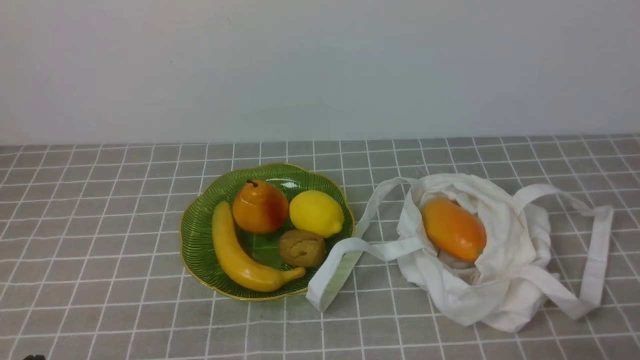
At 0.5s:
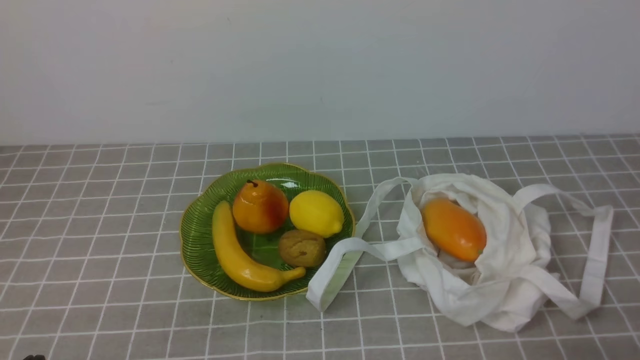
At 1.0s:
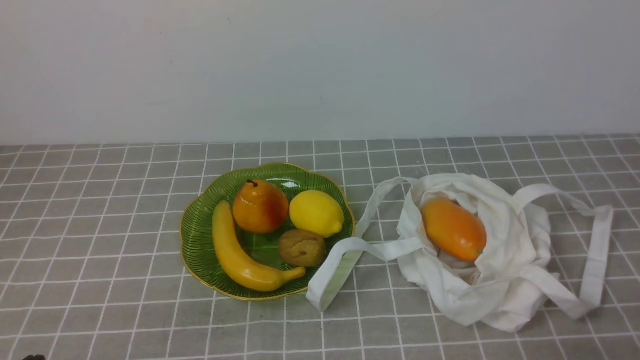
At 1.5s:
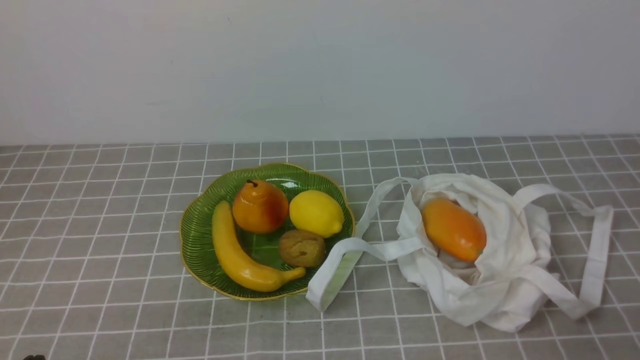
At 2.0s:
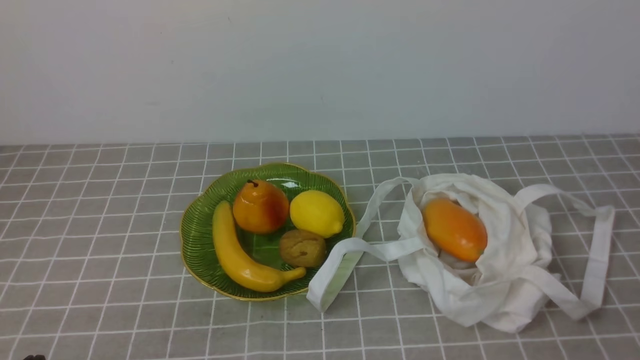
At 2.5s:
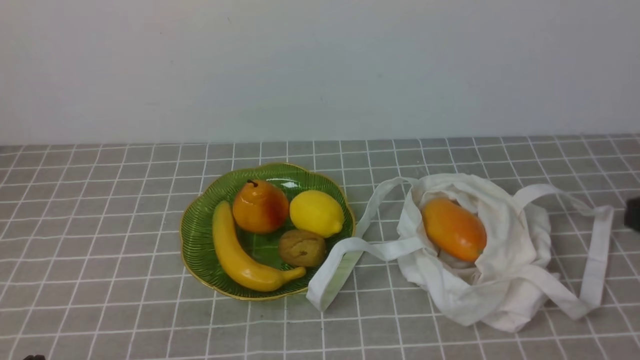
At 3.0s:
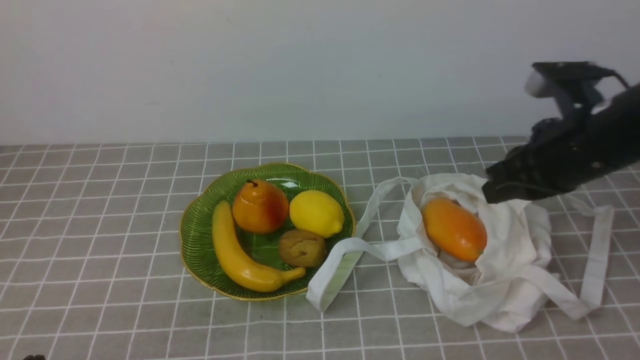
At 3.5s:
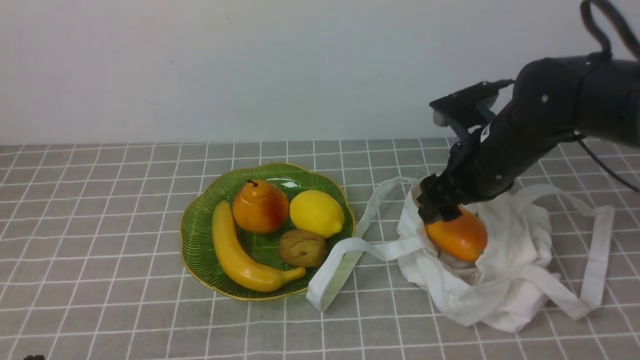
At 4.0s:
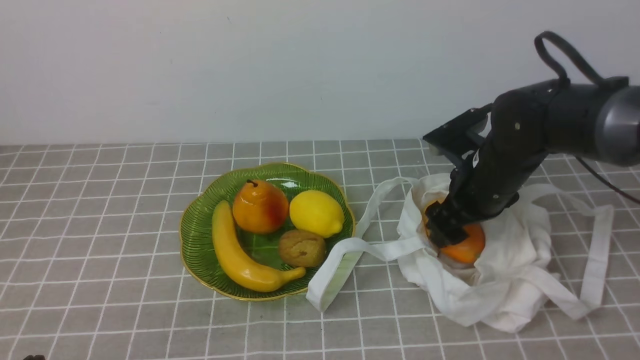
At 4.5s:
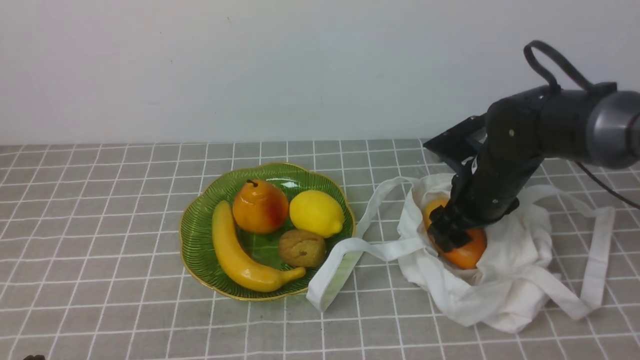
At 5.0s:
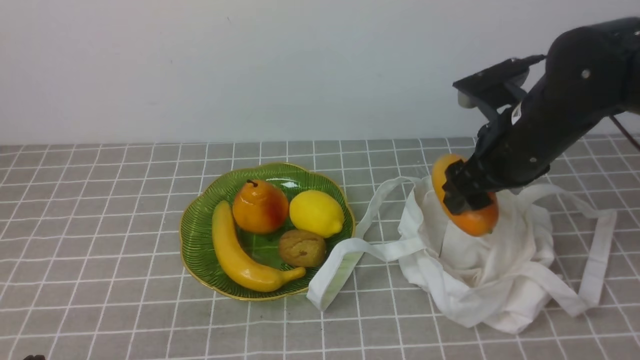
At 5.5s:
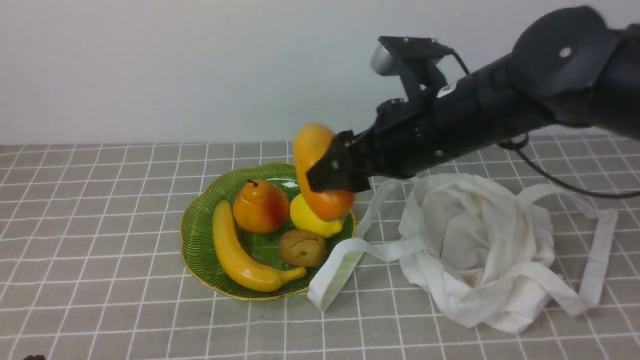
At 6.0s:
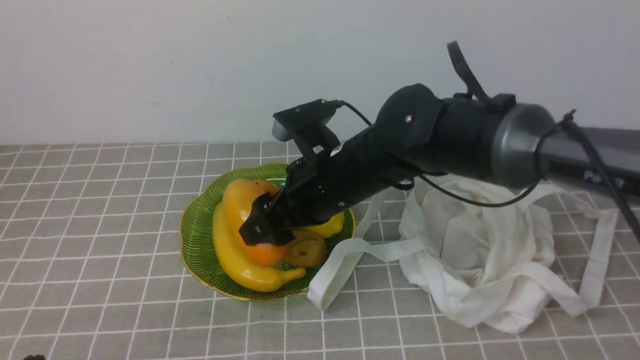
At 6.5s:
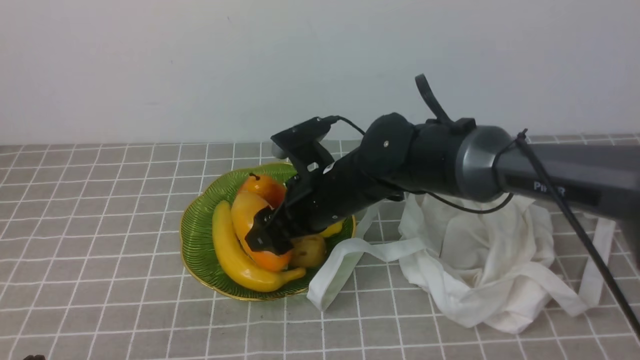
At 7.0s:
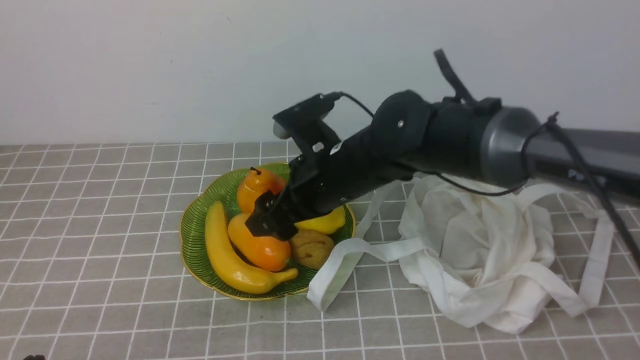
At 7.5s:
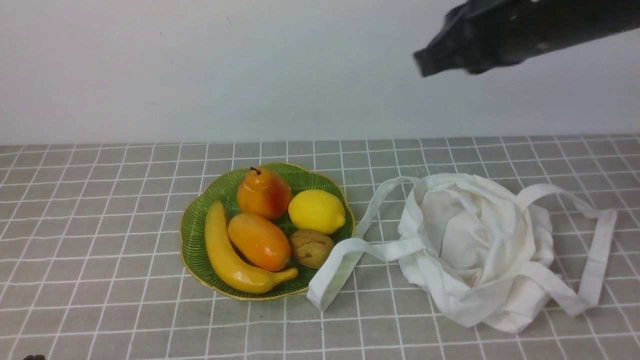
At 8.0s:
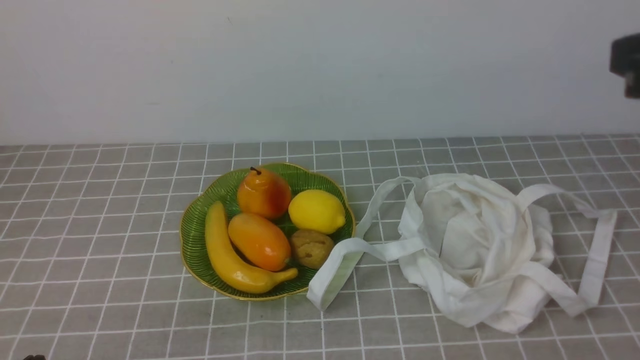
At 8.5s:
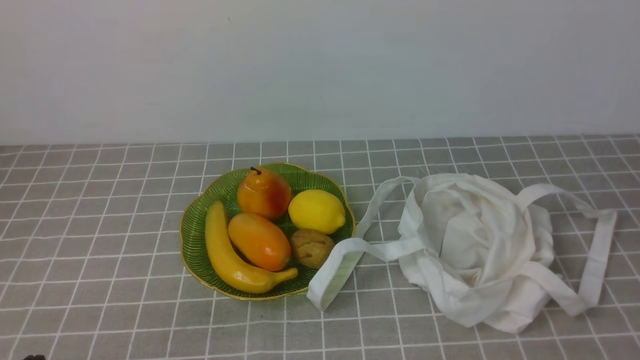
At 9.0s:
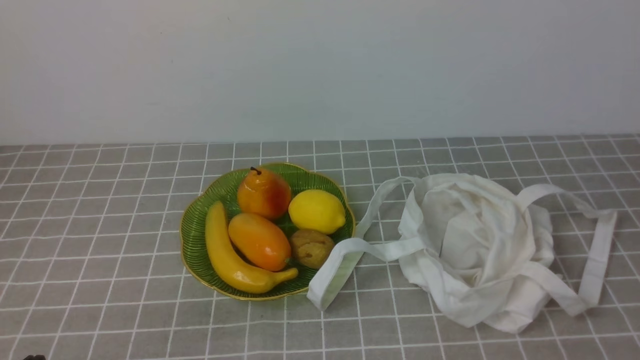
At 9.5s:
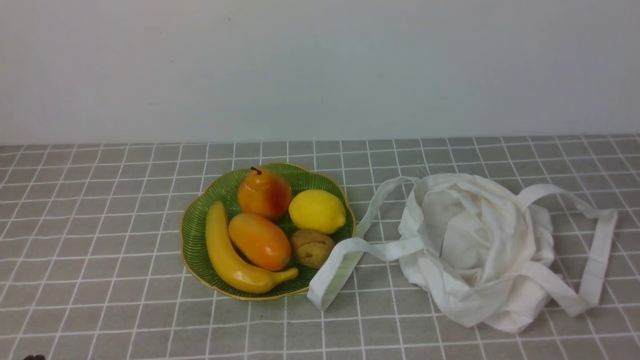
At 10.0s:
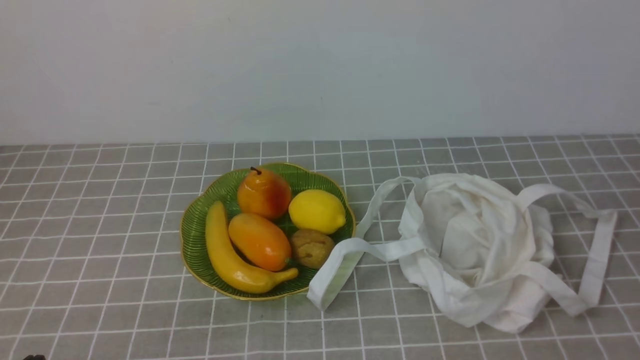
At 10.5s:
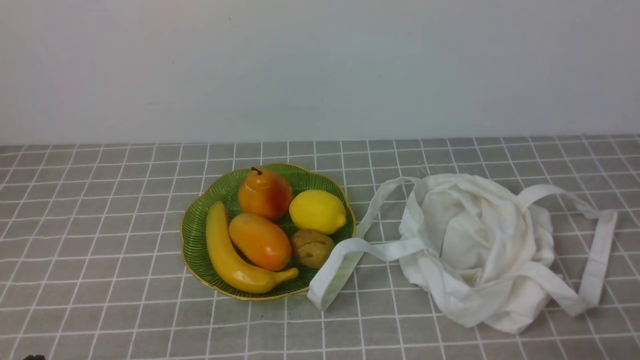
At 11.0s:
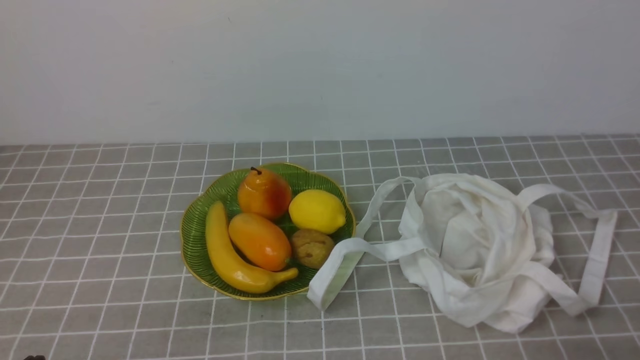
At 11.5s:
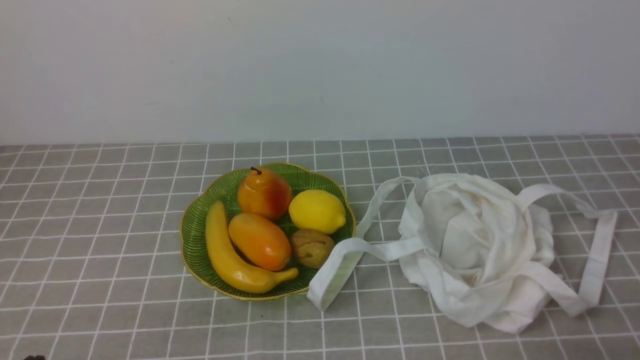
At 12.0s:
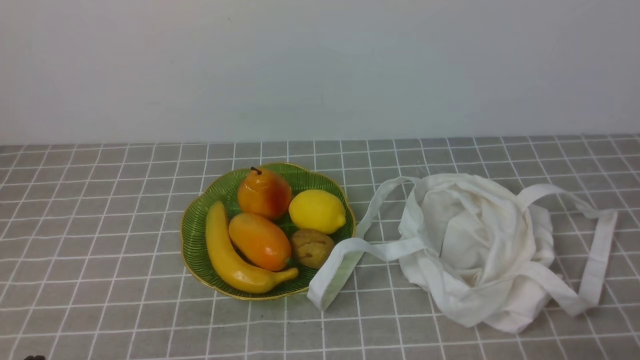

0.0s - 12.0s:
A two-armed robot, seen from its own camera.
Step, 0.0s - 4.0s: use the right arm to grab a mango from the bag.
Step, 4.5s - 6.5s: use the right arm to put the mango into the empty plate on the left.
2.0s - 4.0s: The right gripper travels forward by about 30 cm, and opens.
4.0s - 6.0s: The right gripper is displaced to the left by some 15 cm.
6.0s - 8.0s: The right gripper is displaced to the right, upward and backward by about 30 cm, and closes up.
8.0s - 10.0s: The right gripper moves downward, backward and to the right, approximately 15 cm.

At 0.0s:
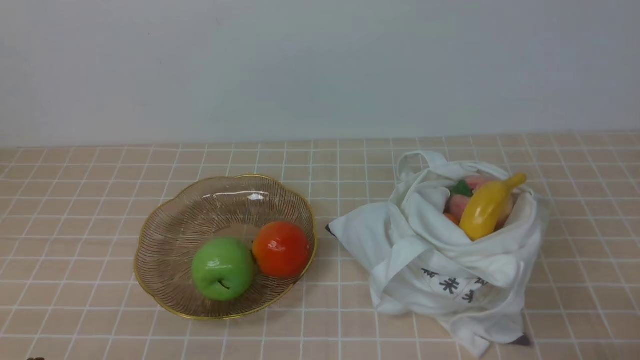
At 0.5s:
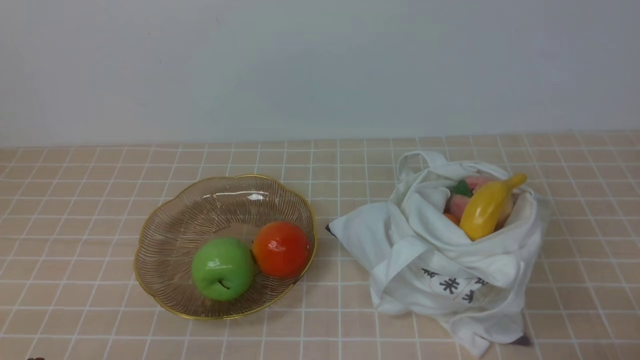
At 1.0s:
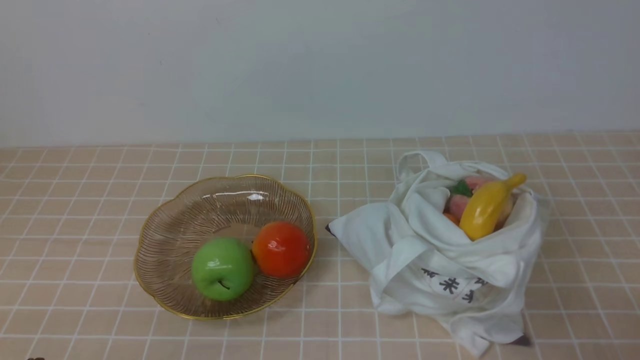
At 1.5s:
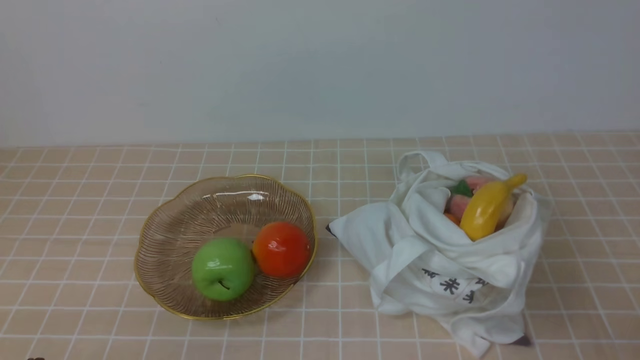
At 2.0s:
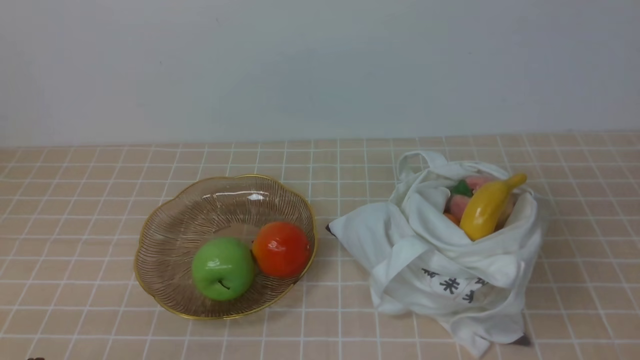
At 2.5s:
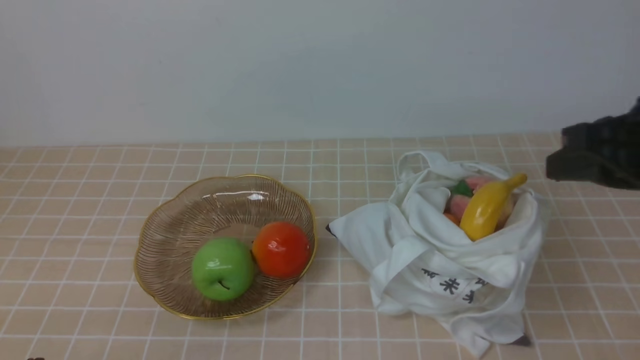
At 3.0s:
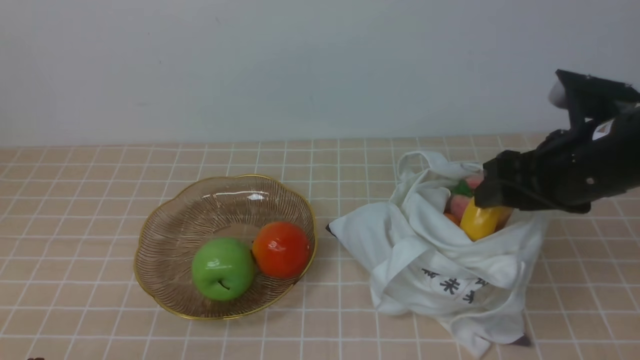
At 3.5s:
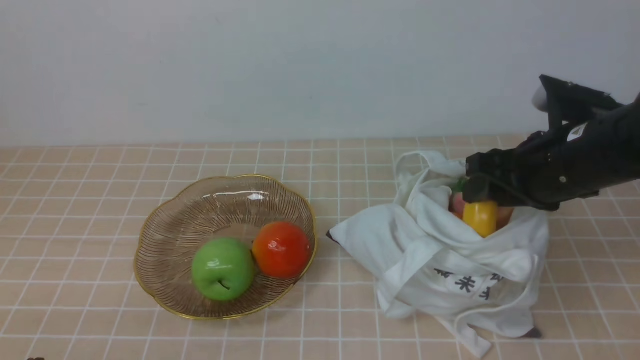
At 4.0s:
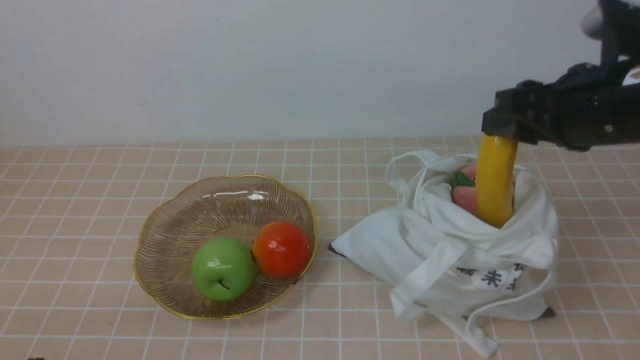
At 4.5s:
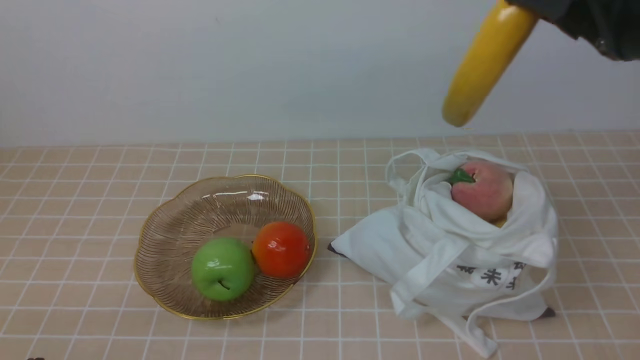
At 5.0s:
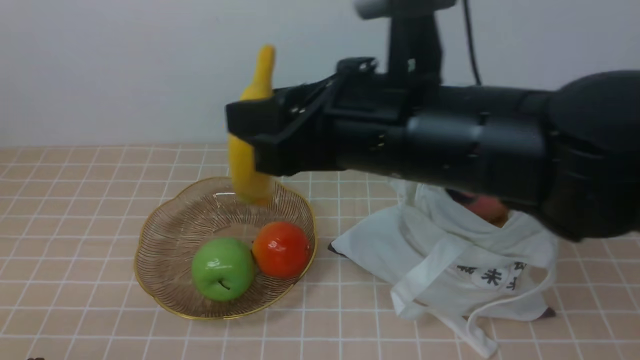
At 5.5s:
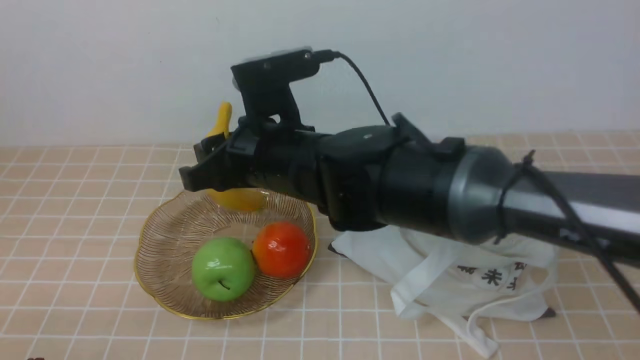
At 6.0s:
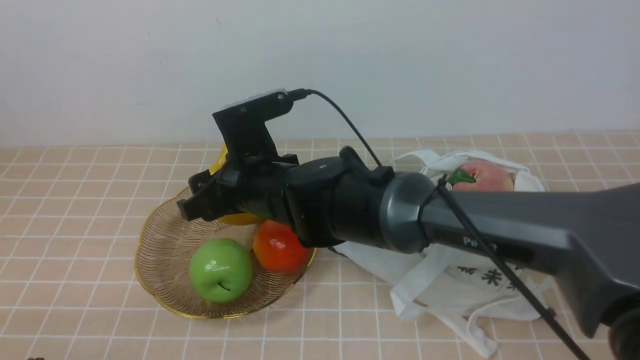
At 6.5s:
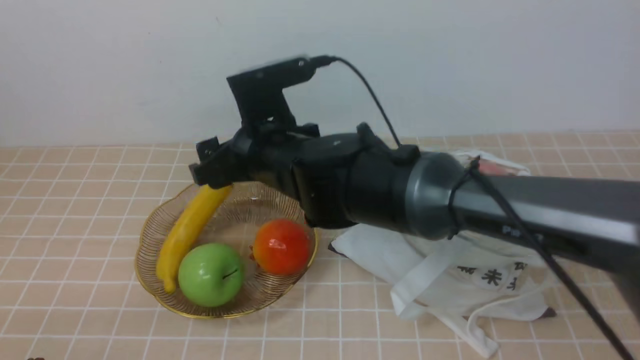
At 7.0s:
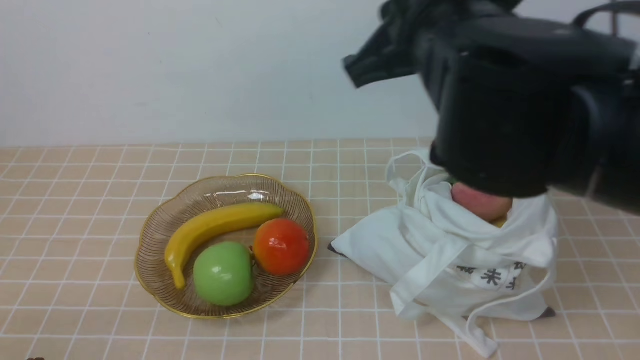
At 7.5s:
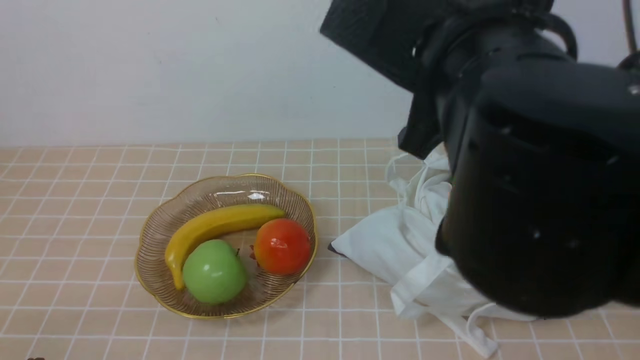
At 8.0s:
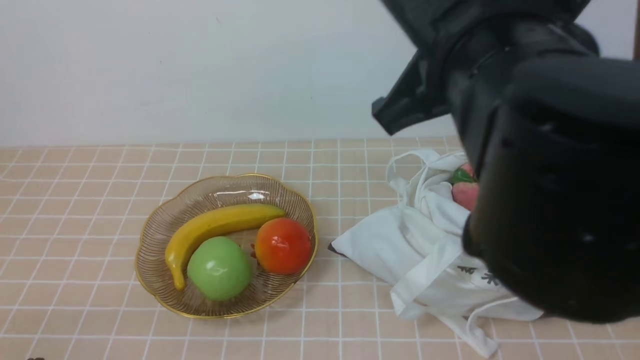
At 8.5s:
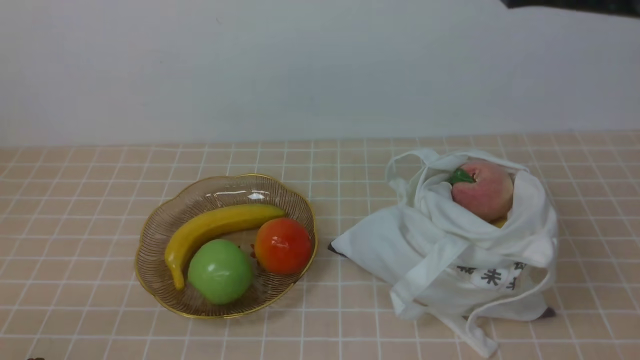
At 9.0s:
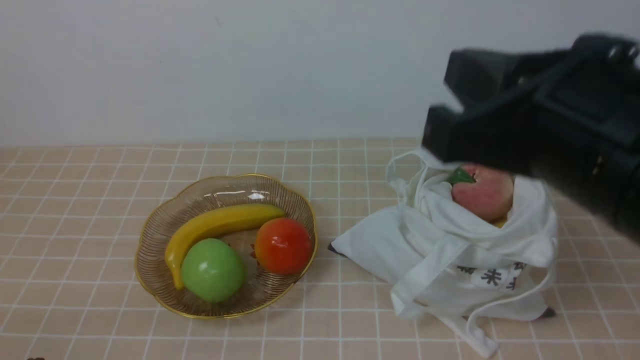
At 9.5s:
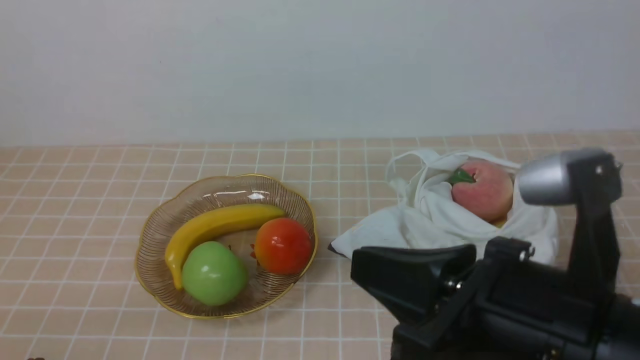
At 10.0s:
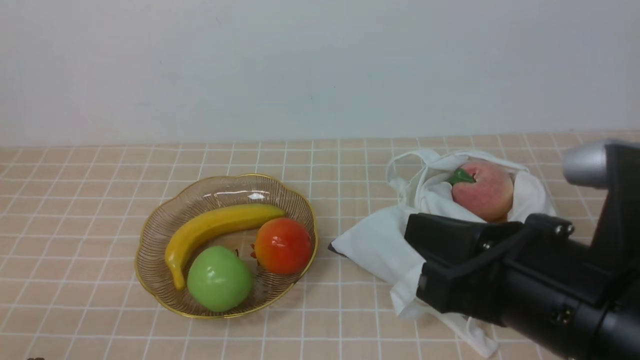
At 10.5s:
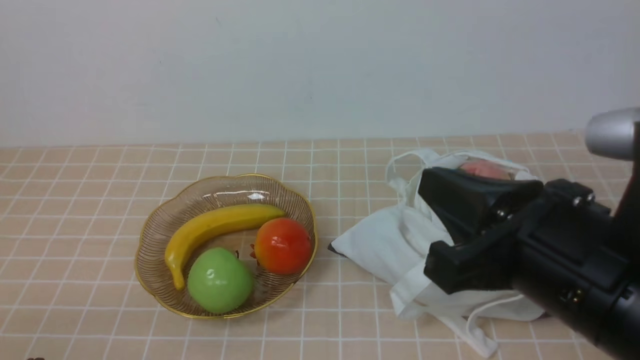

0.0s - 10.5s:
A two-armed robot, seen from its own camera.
Step, 0.0s - 4.0s: use the right arm to grab a banana from the bag.
Step, 4.5s - 6.5s: use the right arm to put the banana into the empty plate on the right.
2.0s - 4.0s: The right gripper travels forward by about 20 cm, and opens its fingers.
4.0s - 6.5s: The right gripper shifts some 25 cm to the left, and opens.
6.5s - 8.5s: The right gripper moves upward, to the right and backward, approximately 30 cm, and closes.
8.5s - 10.5s: The right gripper travels downward by about 15 cm.
